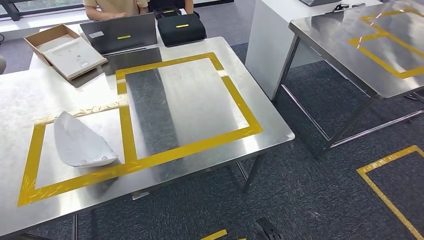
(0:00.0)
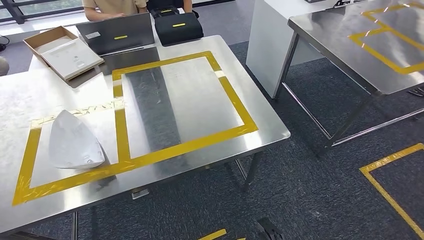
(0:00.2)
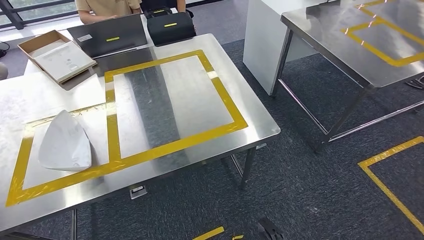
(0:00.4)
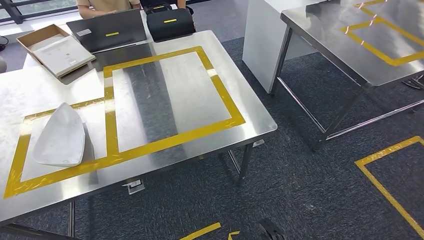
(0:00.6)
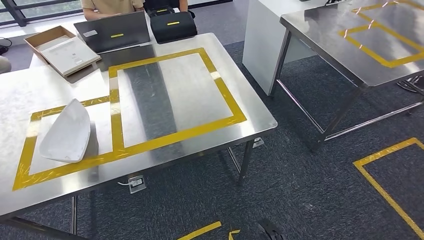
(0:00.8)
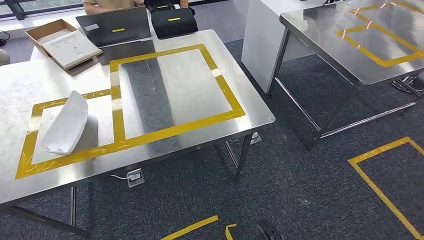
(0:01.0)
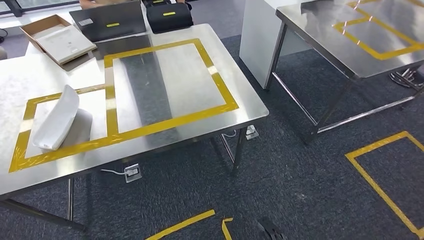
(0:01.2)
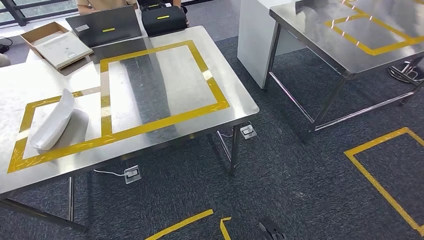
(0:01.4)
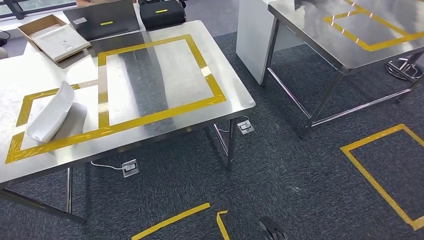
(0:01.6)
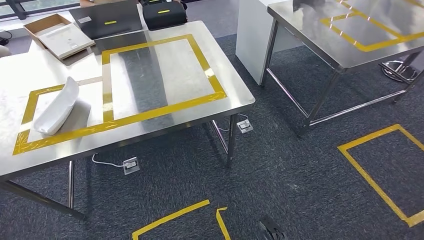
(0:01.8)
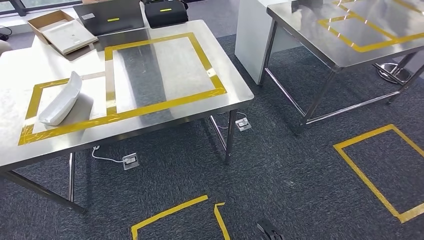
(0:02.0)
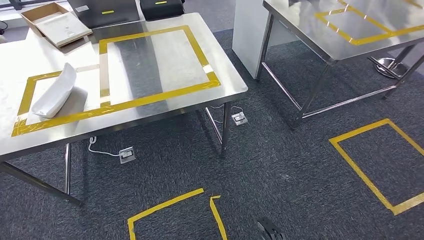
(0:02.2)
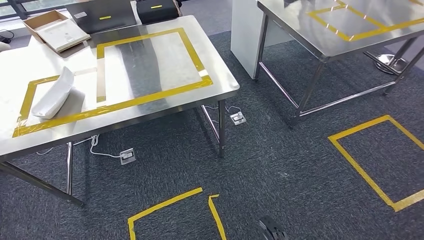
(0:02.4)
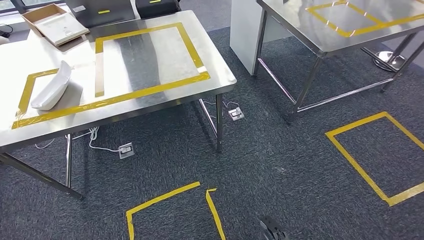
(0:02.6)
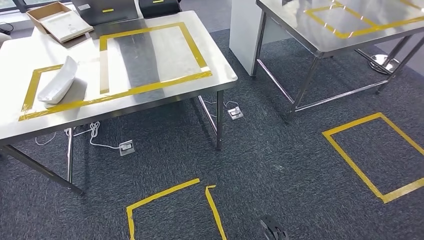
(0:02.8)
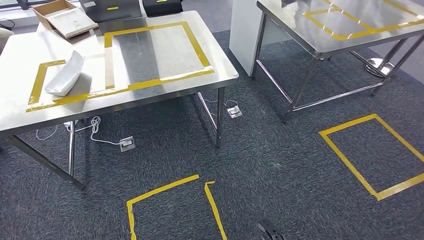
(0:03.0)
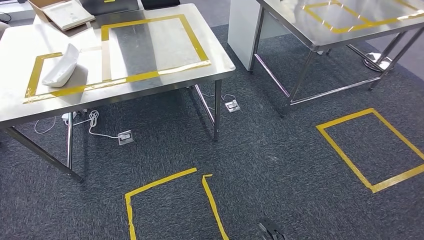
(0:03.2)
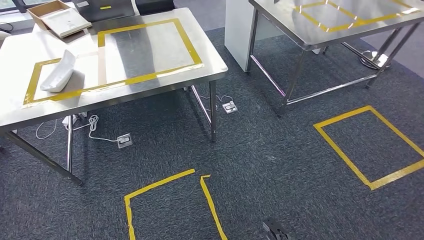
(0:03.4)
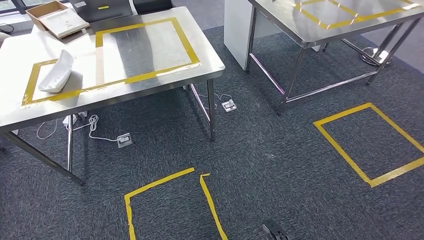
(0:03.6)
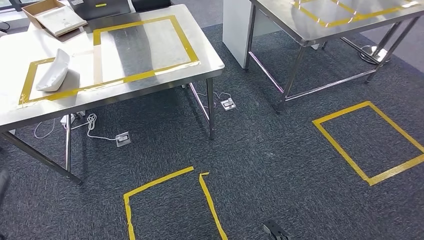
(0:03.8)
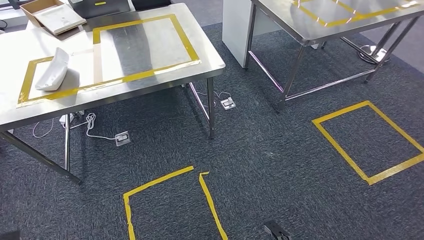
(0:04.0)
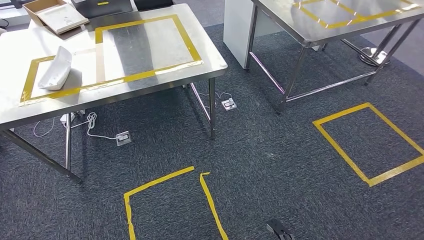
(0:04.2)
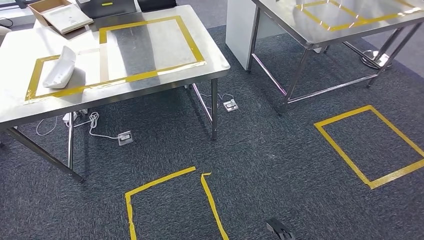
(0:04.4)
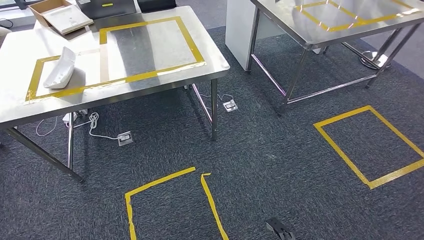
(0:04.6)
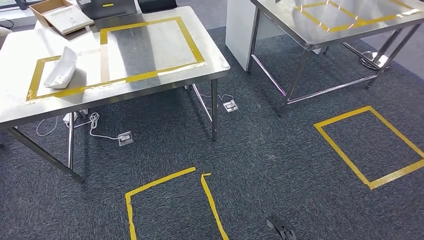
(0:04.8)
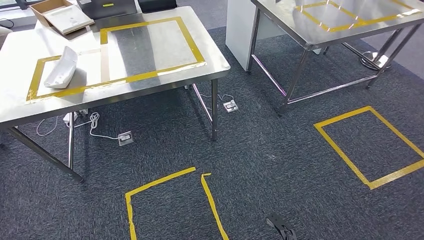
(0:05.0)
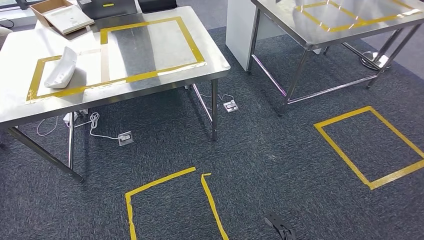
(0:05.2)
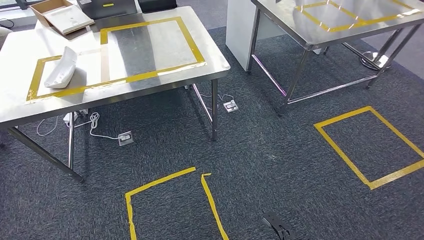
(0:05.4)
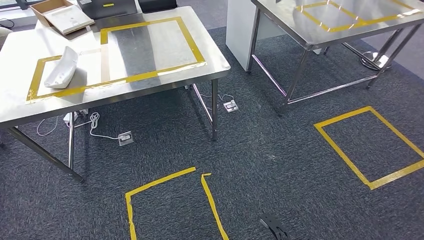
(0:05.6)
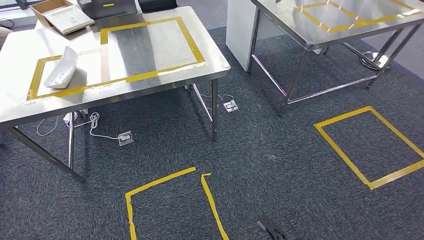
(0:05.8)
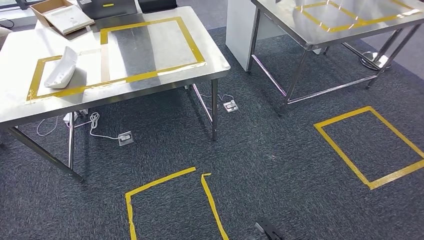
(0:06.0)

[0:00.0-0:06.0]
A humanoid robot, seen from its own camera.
Step, 0:00.2 to 0:06.0: Move to the initial position at the workbench.
0:04.4 to 0:06.0: The left hand moves to the right and backward, approximately 10 cm.
